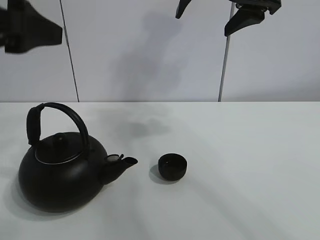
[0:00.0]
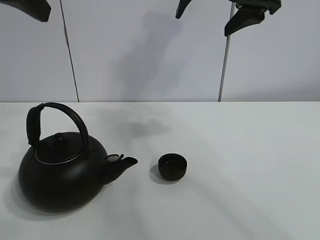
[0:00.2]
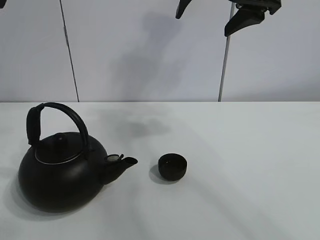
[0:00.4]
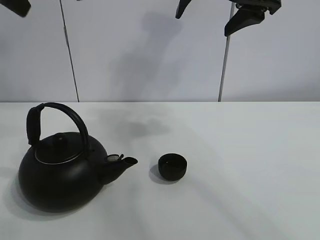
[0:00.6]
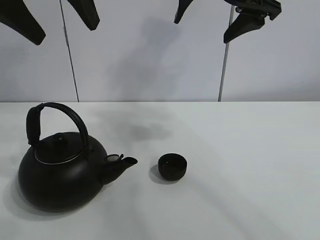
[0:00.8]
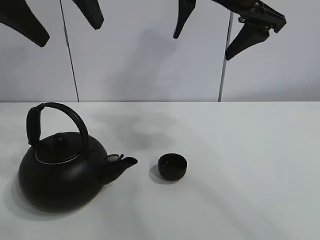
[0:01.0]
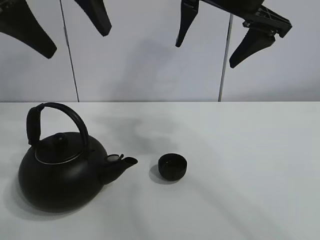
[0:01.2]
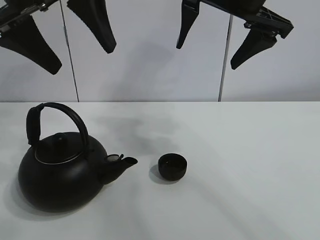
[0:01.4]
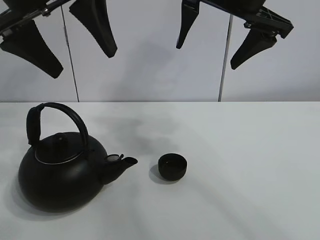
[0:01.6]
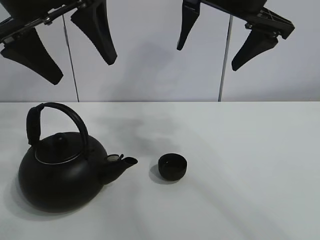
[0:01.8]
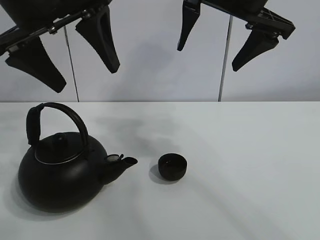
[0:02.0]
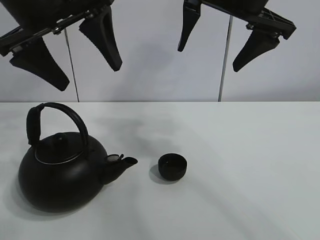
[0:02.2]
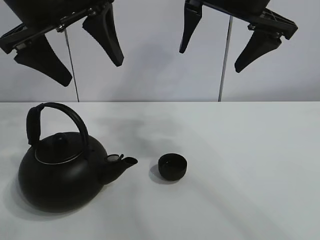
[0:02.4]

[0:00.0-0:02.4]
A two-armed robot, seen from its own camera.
Task of the whole recording: pour tea into the teacup.
0:00.0 to 0:01.2: The left gripper moves upward, forward and to the right, approximately 10 cm.
0:01.2 to 0:02.4: The grippers move only a little.
